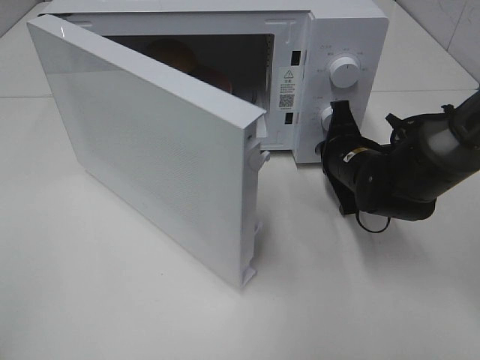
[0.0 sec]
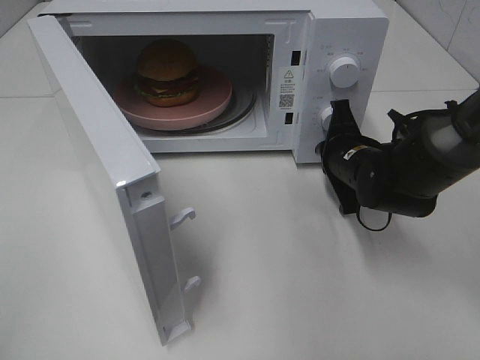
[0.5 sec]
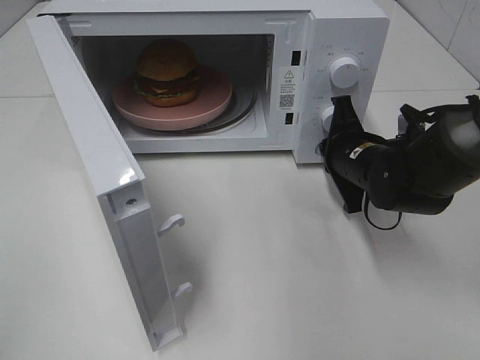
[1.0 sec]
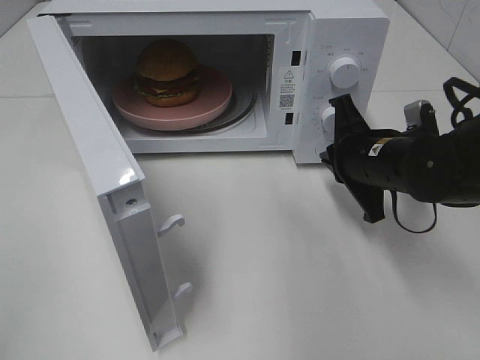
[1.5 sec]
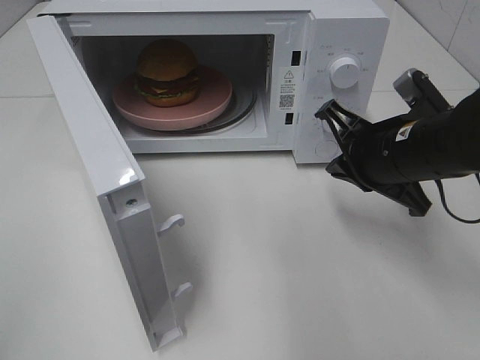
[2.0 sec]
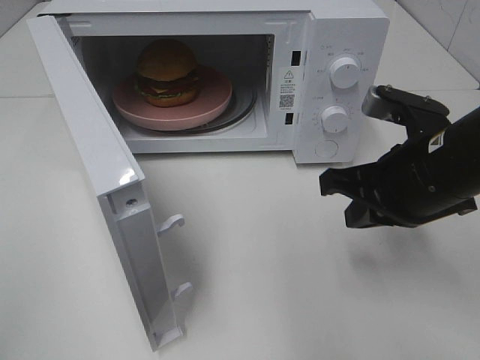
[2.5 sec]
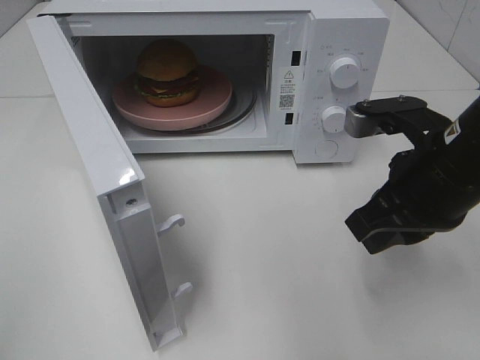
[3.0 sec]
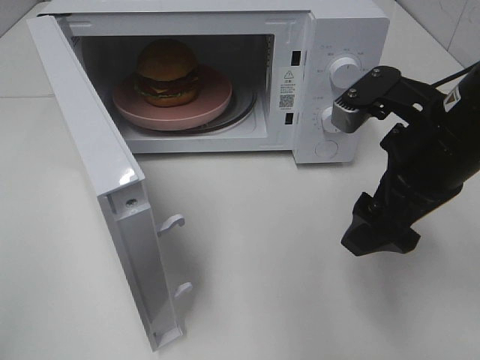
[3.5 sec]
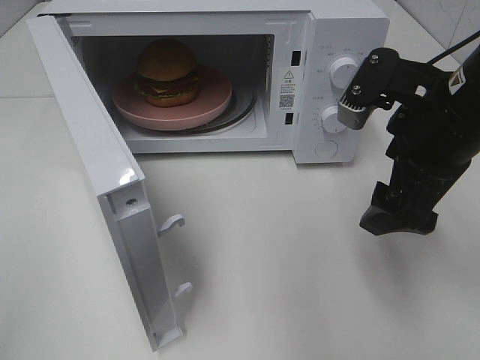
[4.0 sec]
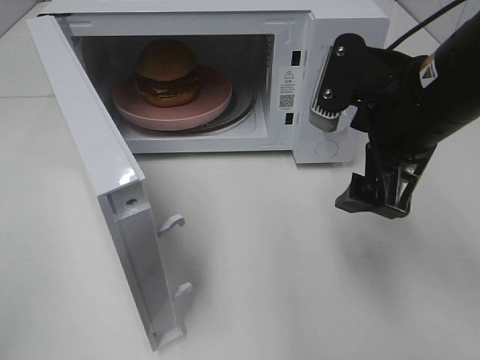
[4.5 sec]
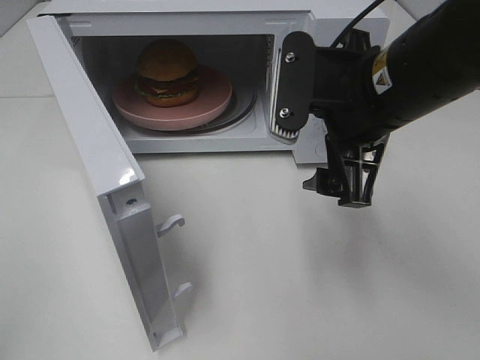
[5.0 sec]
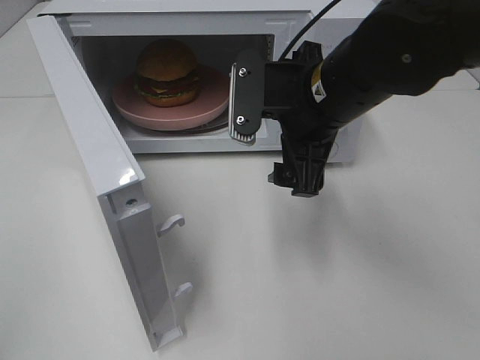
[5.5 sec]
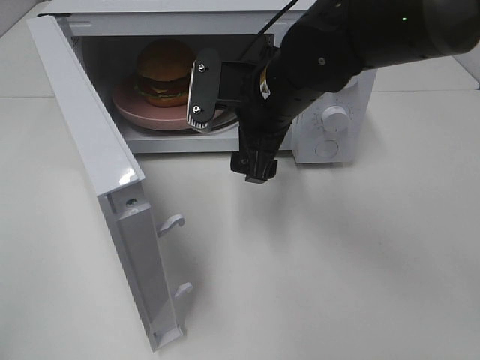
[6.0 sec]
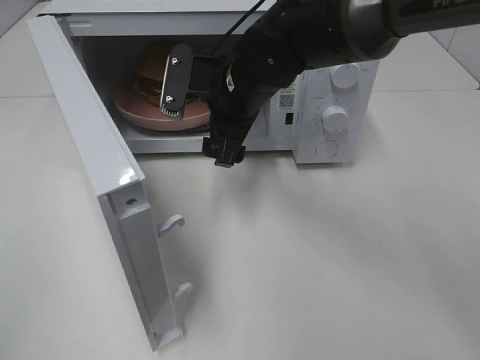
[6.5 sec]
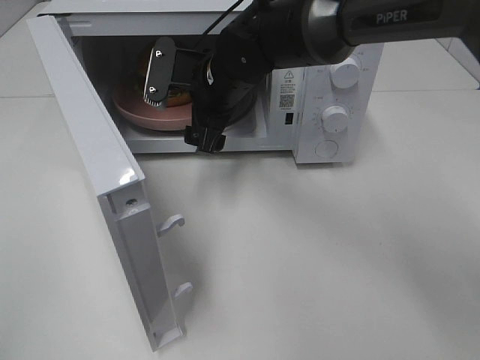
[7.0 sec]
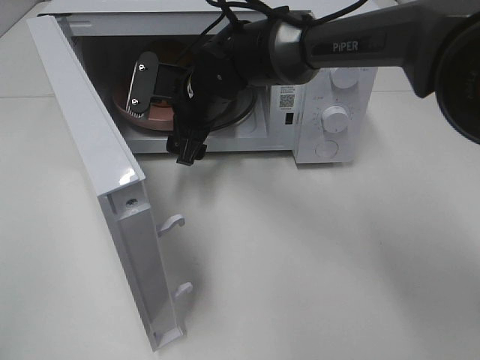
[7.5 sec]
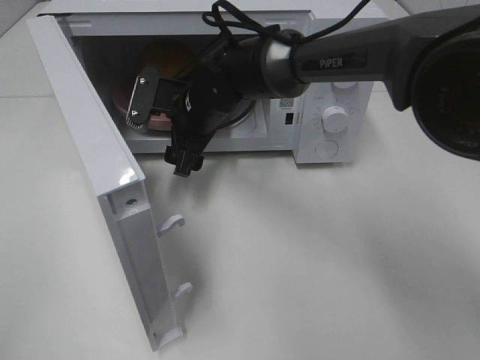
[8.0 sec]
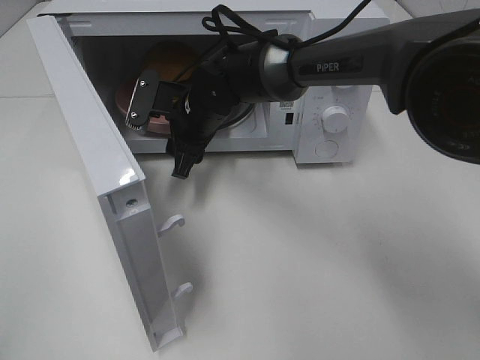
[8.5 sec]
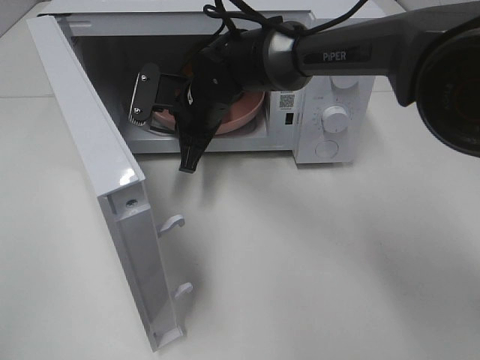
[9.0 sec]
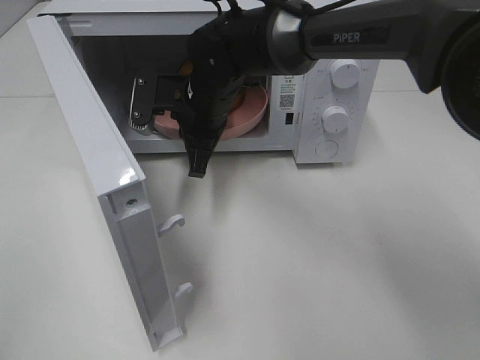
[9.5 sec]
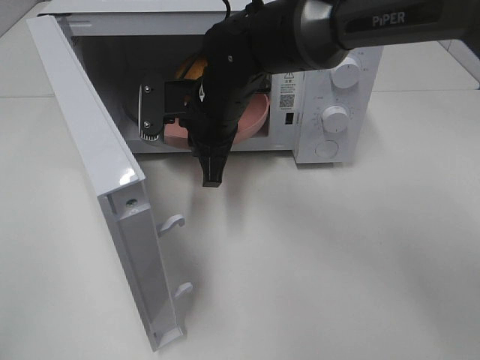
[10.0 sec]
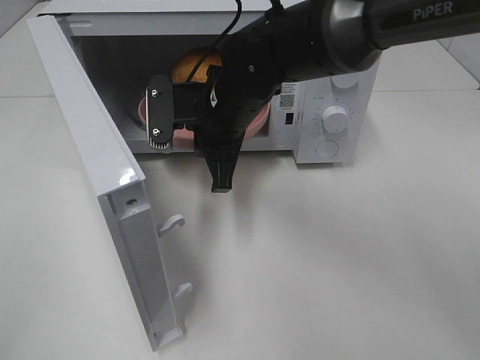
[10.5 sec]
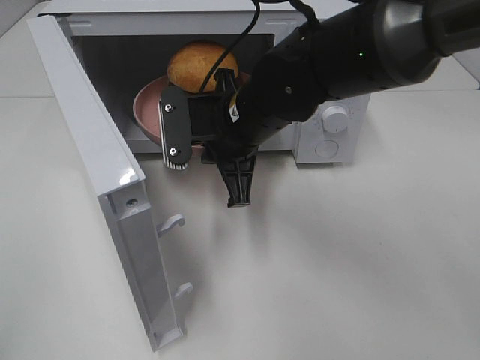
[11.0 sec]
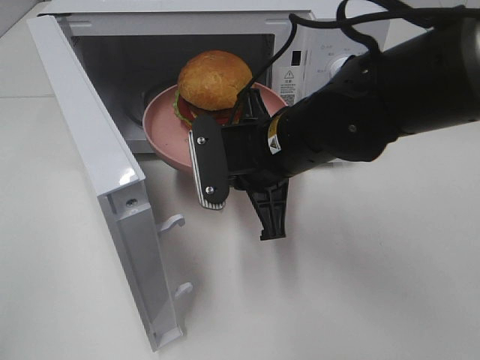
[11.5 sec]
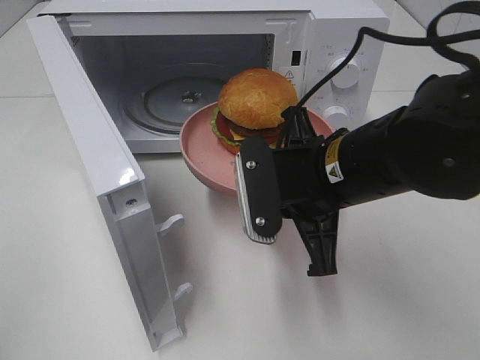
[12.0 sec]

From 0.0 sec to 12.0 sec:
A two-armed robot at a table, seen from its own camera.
Task of the whole recording: Heat the burger.
Step, from 1.5 sec to 8.5 sec: Right hand: grab the plate with the hamburger.
From 0.0 sec to 2.0 sec: The right gripper shifts about 10 cm upward and backward.
From 2.0 sec to 4.0 sec: The right gripper heads upward, covering roughly 5 cm, and opens up.
From 4.0 sec to 6.0 sec: The right gripper shifts some 15 cm to the left and forward.
From 6.0 sec to 8.0 sec: The right gripper shifts approximately 15 cm to the left, forward and downward.
From 8.0 sec to 10.0 sec: The right gripper ends up roughly 5 cm from where it was, and closes up.
From 10.0 sec to 12.0 sec: The right gripper travels backward and to the right by approximately 15 cm.

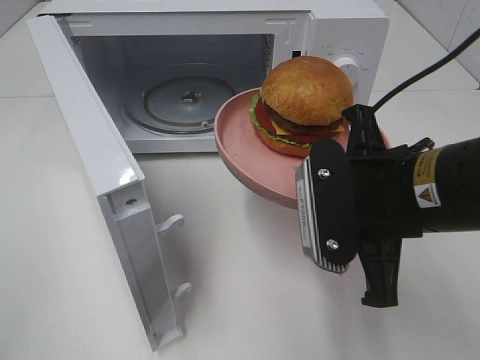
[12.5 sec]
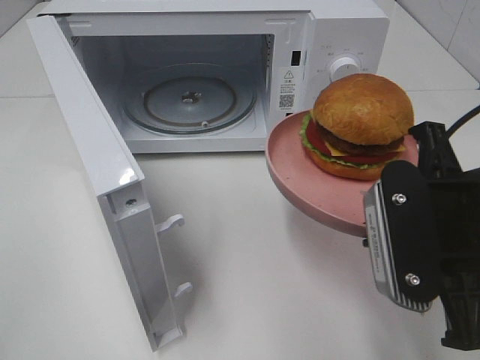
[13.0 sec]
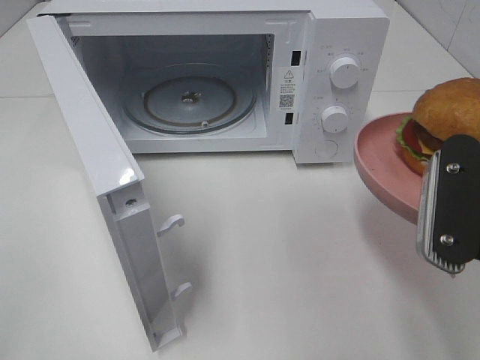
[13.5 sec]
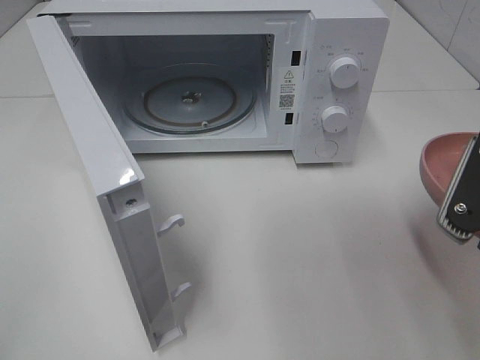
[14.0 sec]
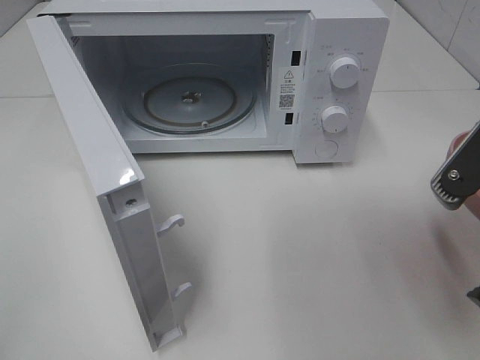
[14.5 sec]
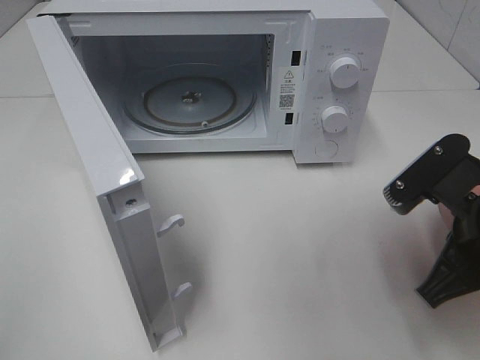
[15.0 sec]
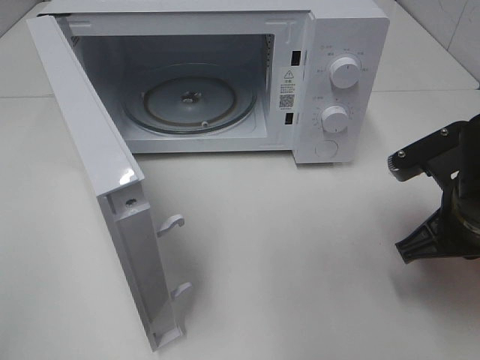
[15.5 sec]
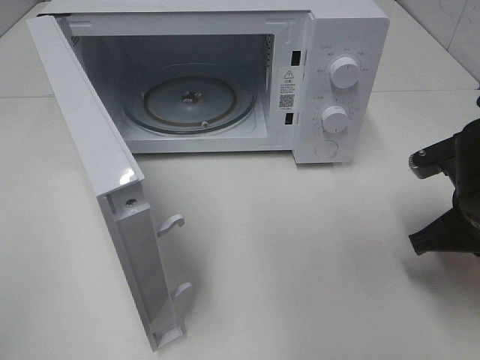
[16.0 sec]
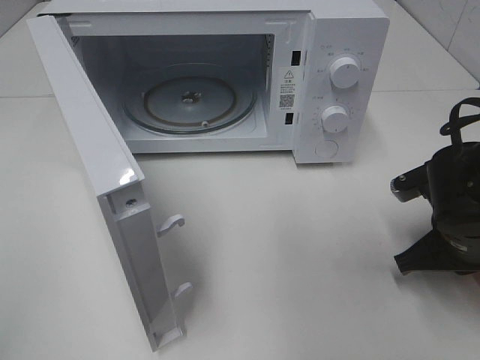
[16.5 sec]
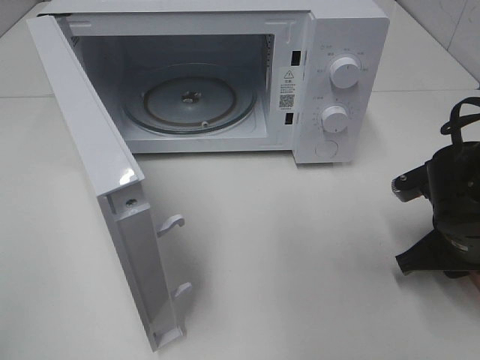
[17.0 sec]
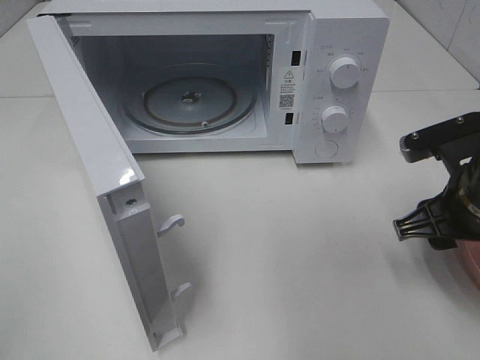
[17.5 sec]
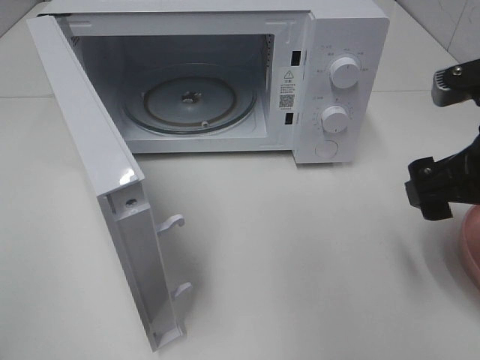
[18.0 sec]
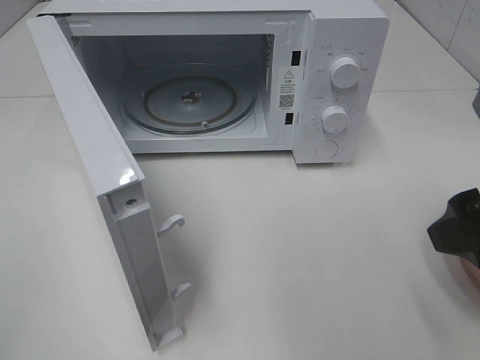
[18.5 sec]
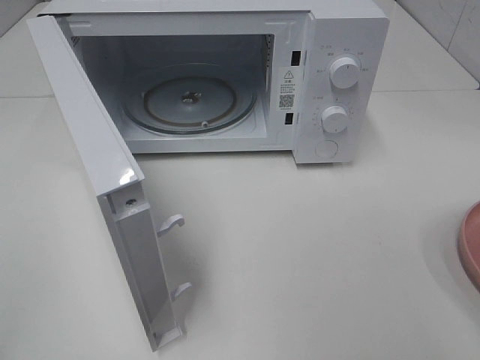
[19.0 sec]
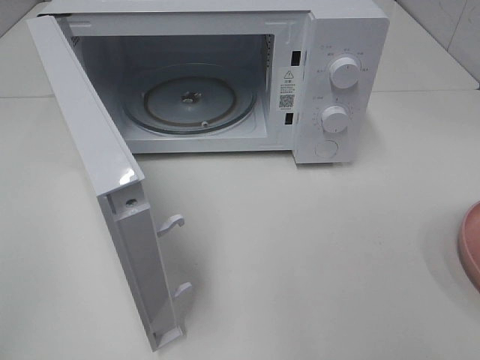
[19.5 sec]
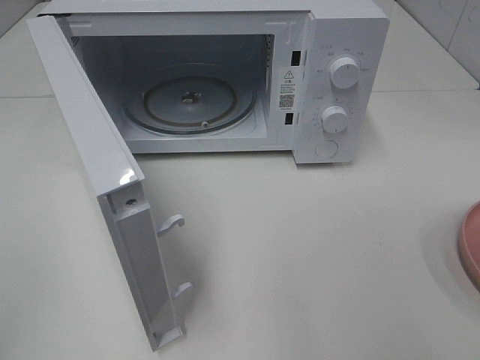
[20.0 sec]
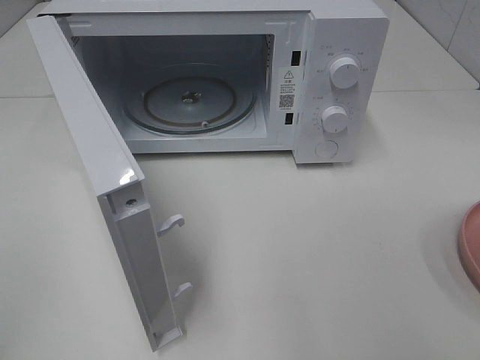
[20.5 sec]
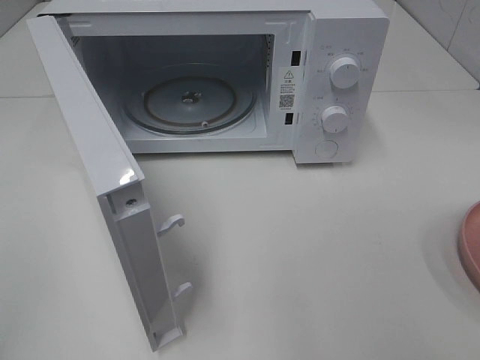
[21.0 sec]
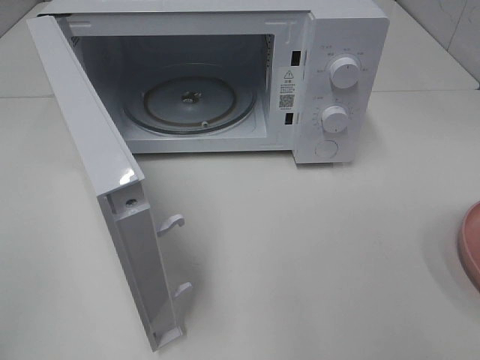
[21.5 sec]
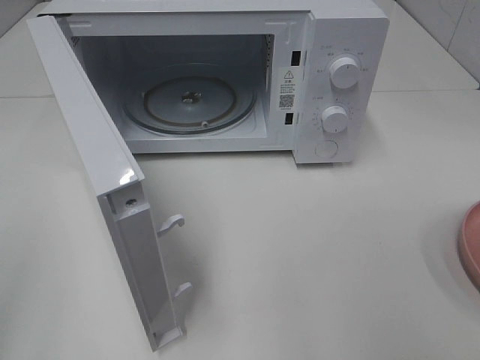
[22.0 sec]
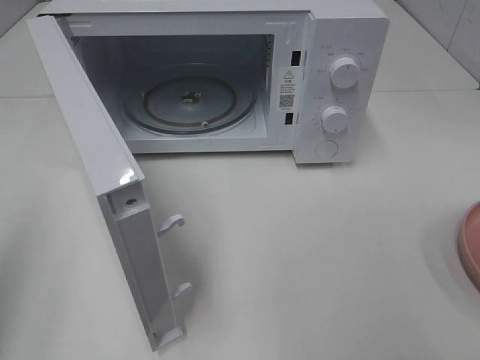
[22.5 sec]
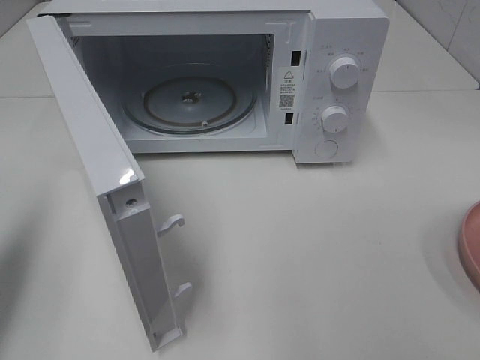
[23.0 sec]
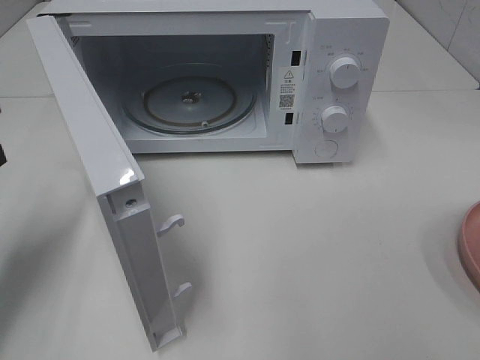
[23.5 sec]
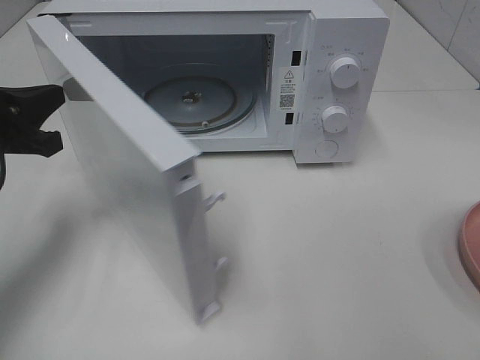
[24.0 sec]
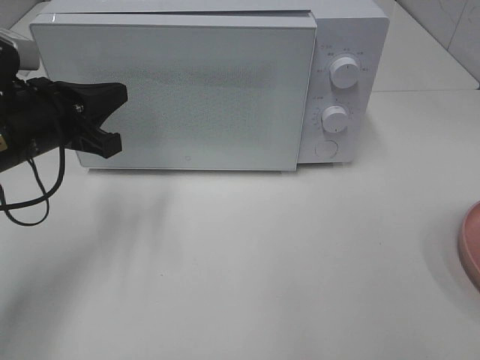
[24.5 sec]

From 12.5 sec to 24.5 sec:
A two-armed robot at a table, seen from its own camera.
Task of the whole recording: Heat the burger.
Step, from 12.5 sec to 16.5 sec: Right hand: place the plate on the table.
From 12.5 sec to 14.5 sec: The right gripper moves to the right, roughly 10 cm.
From 14.5 sec to 16.5 sec: The right gripper moves downward and forward, some 15 cm.
From 16.5 sec to 18.5 sec: The right gripper moves upward and backward, roughly 20 cm, and opens its fingers.
From 18.5 sec to 20.5 sec: The right gripper goes some 15 cm backward and to the right.
From 22.5 sec to 24.5 sec: The left gripper travels forward, to the right and downward by approximately 25 cm.

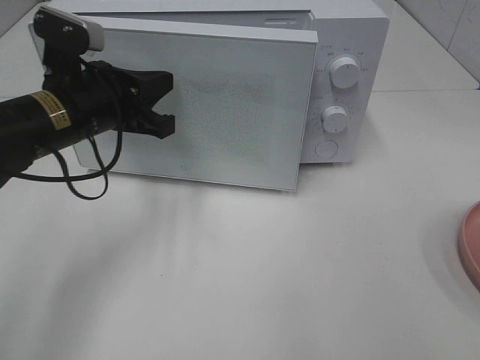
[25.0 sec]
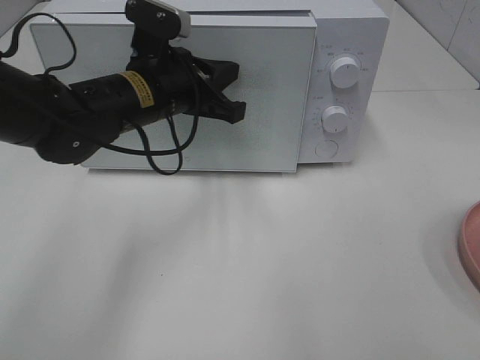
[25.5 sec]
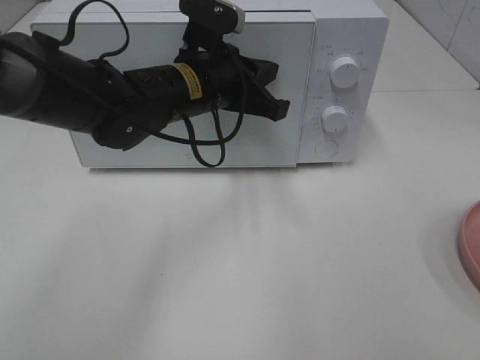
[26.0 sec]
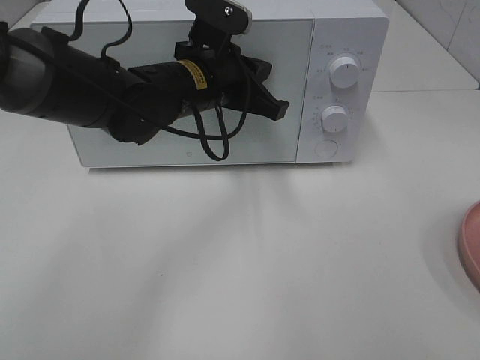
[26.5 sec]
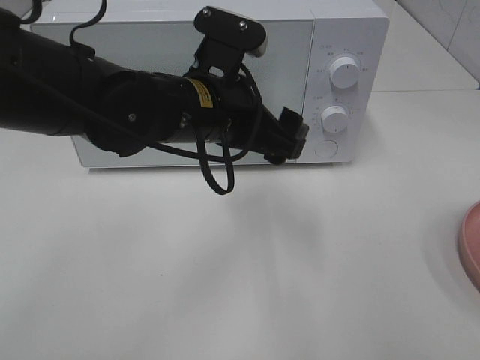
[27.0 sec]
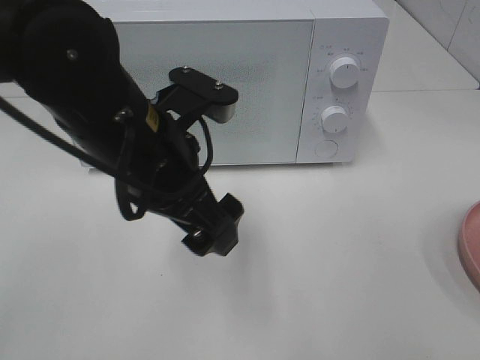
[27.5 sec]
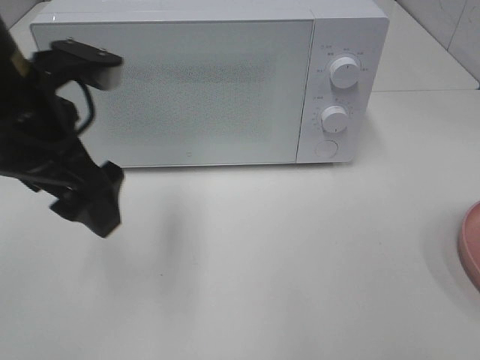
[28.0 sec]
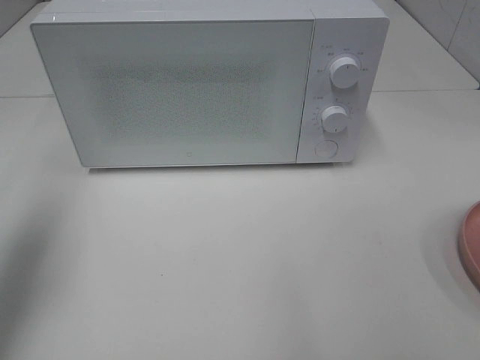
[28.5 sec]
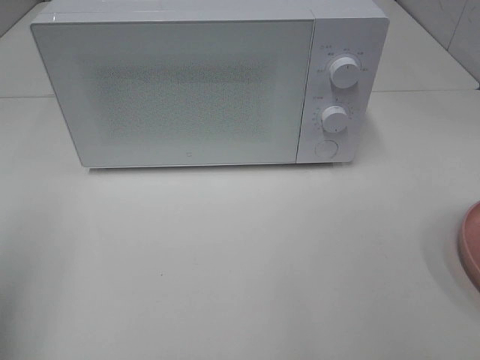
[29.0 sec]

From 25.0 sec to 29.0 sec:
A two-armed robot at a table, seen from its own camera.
Task of the whole recording: Heat the burger.
From 25.0 sec to 27.0 sec: The left gripper shifts roughly 10 cm to the right, and opens its fingers.
From 27.0 sec to 29.0 sec: The left gripper is displaced to the left and backward by roughly 35 cm.
